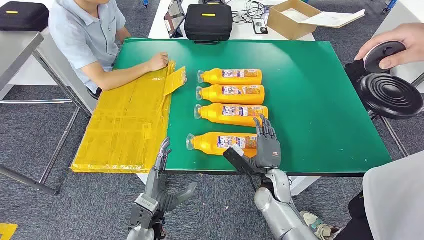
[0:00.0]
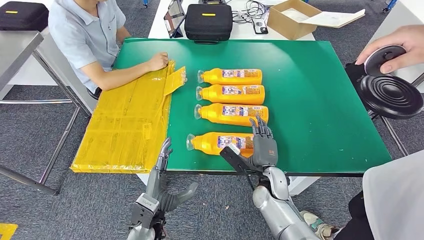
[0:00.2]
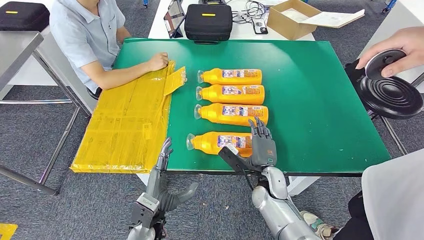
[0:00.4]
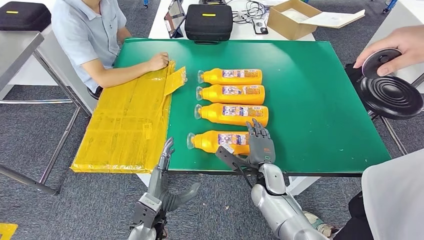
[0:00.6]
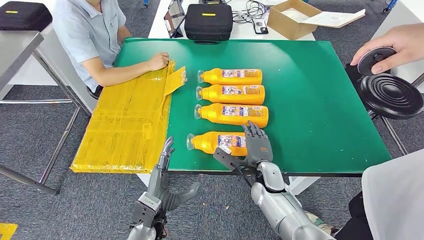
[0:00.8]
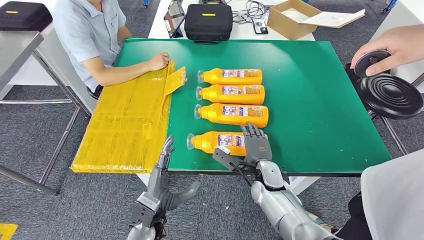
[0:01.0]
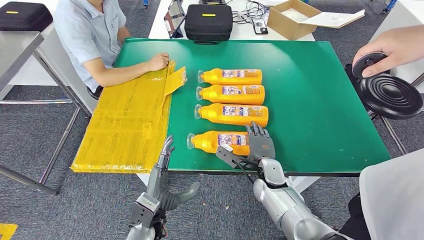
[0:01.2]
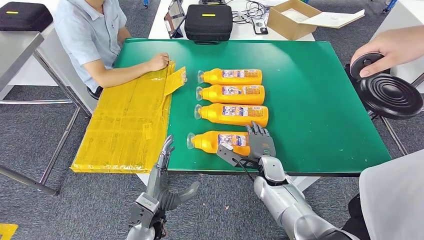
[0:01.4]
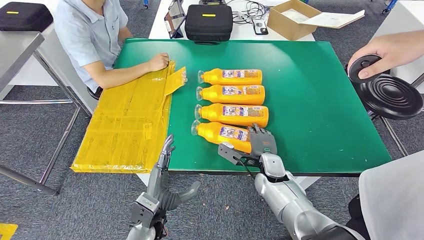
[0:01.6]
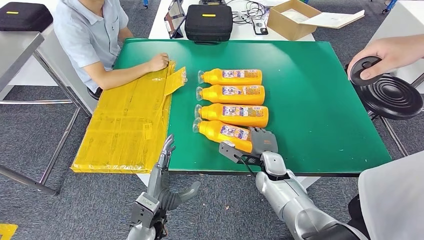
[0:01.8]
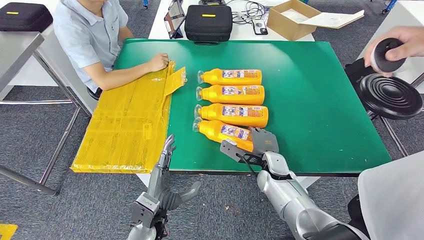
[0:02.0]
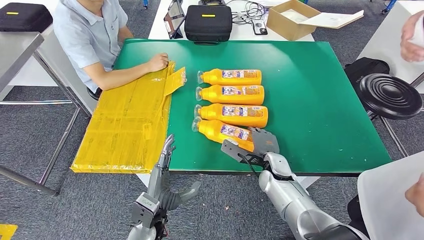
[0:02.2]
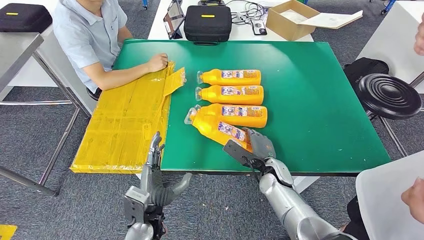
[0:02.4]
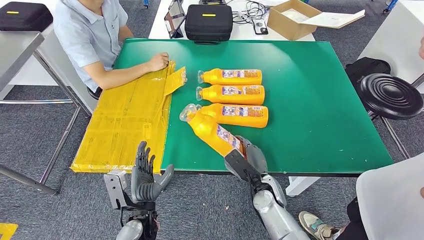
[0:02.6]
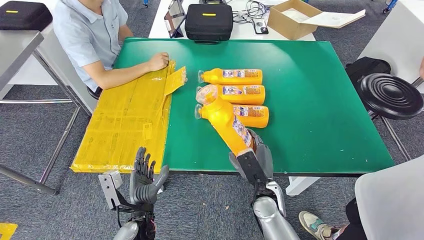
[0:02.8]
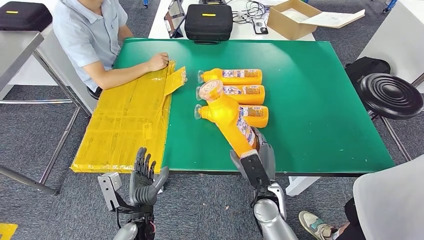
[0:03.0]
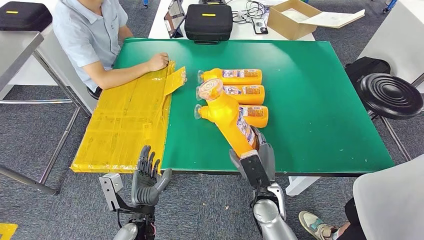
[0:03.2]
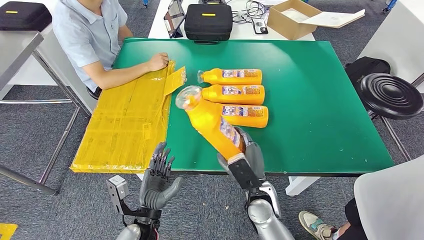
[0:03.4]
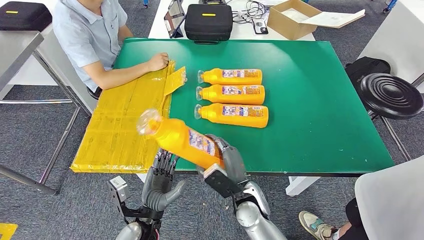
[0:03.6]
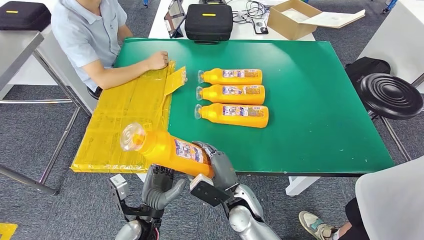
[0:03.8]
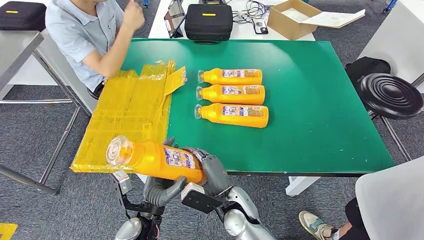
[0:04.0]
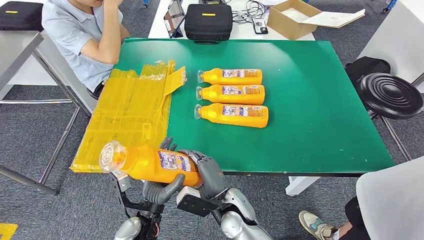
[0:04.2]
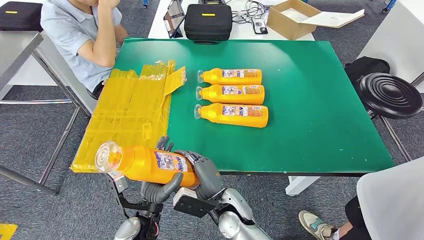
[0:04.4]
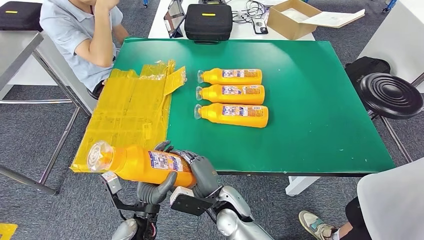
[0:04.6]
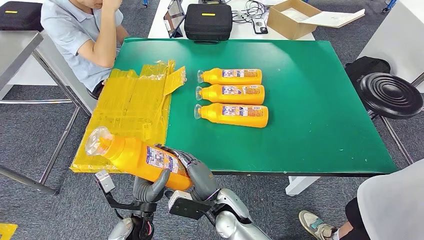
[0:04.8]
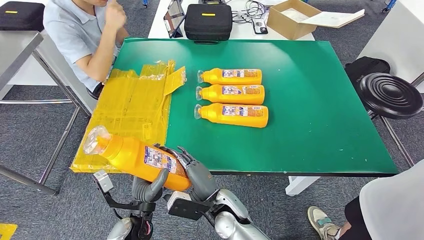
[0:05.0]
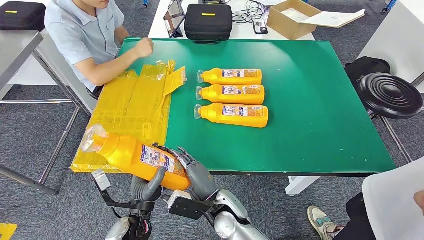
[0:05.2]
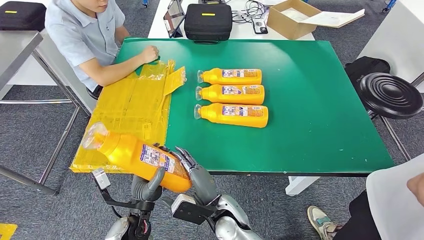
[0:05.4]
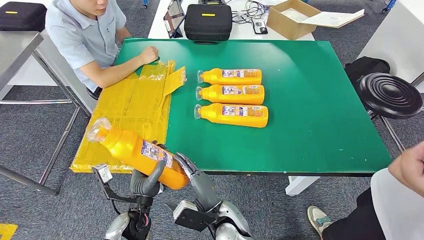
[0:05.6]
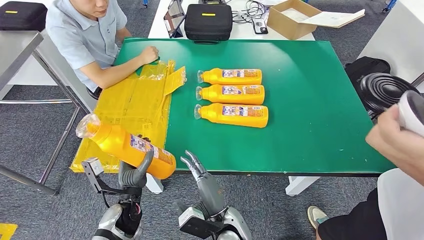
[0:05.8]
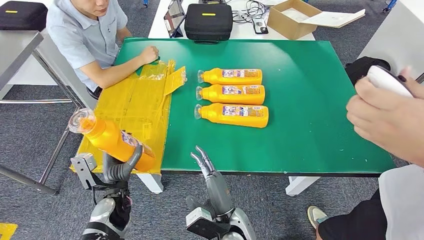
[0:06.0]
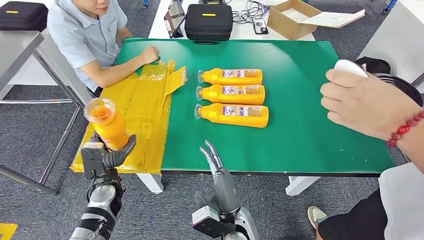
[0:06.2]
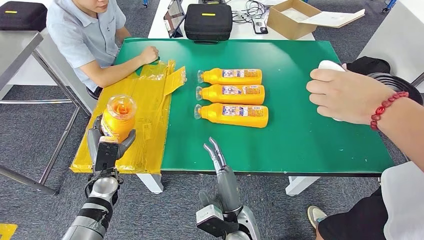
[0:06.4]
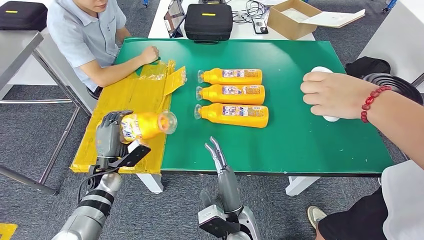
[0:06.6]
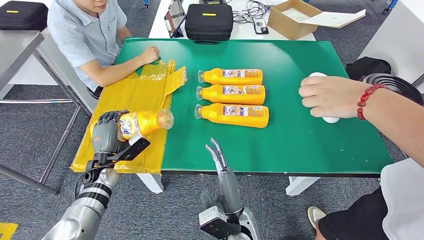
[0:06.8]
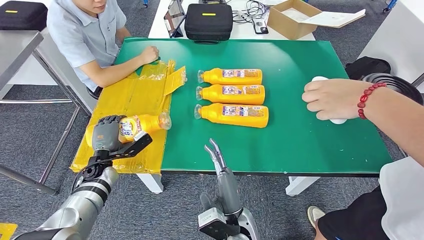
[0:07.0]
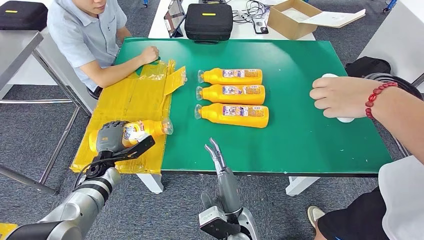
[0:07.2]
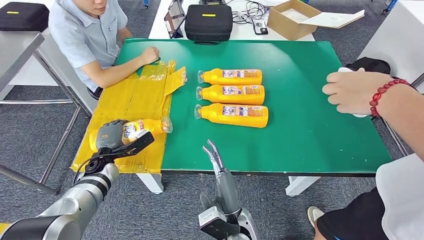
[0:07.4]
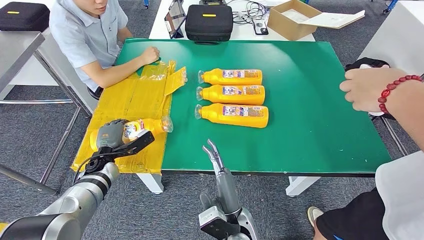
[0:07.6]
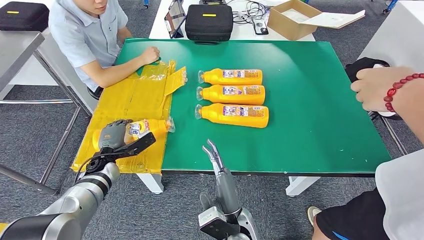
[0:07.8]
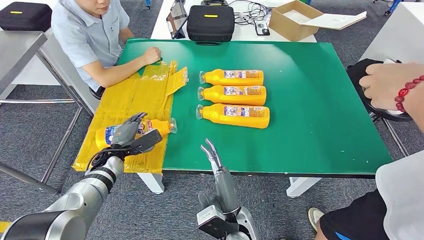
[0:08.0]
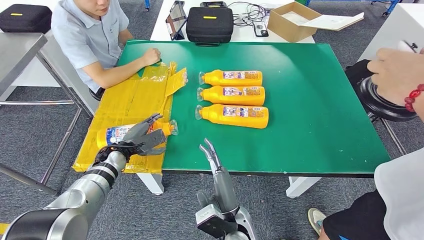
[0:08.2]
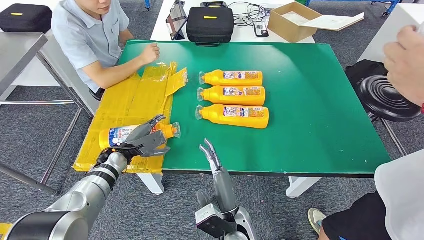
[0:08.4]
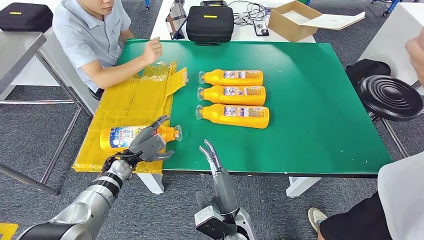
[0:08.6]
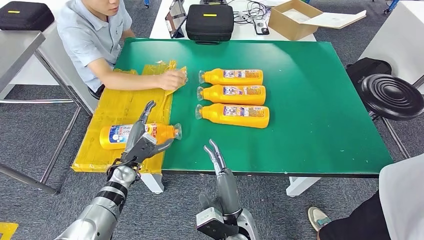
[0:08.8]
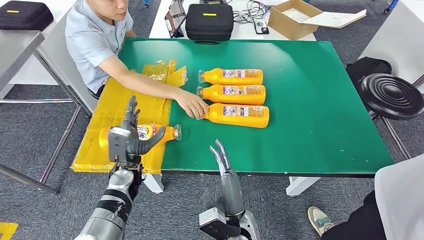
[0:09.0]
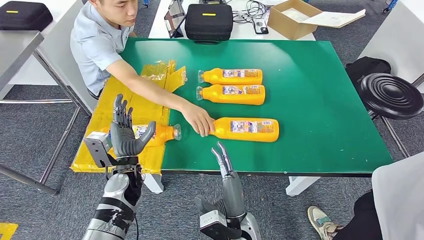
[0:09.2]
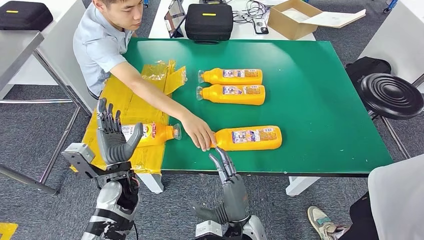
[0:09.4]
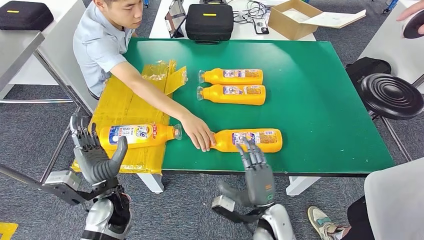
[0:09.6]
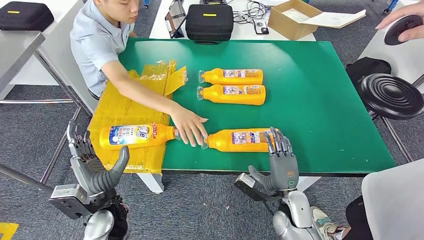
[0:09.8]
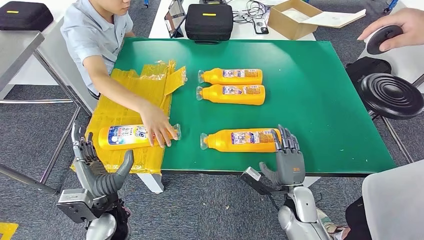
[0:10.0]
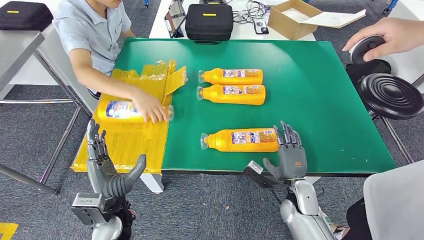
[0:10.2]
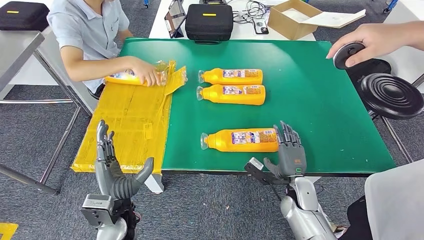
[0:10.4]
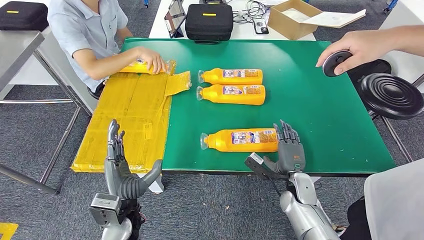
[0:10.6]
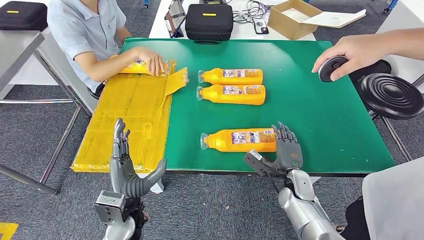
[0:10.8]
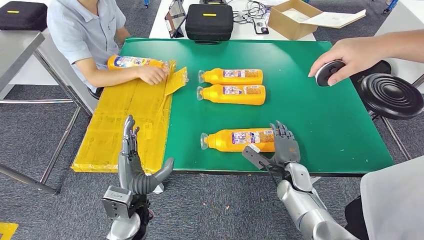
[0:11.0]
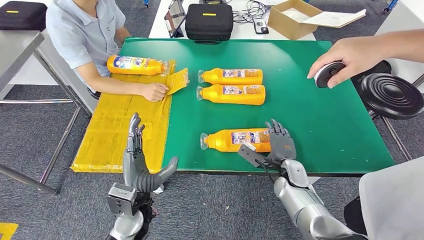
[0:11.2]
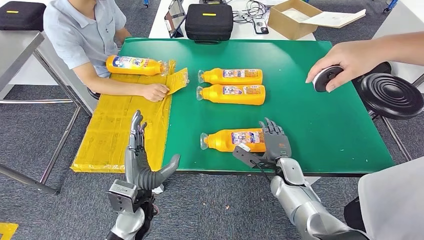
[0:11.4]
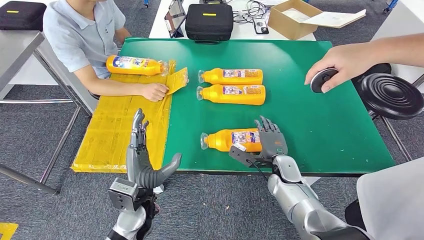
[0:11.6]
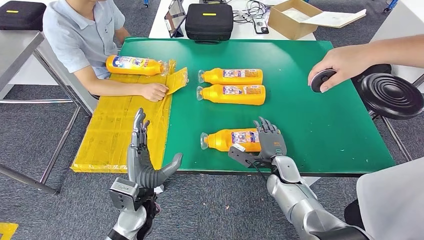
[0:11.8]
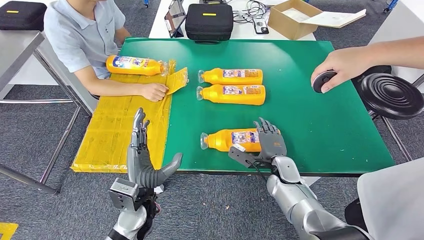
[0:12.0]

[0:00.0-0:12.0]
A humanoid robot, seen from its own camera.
Step, 0:00.0 to 0:03.4: Take the fast-moving consumer goods bottle from the table.
Step, 0:04.2 to 0:08.8: Flip the fast-moving consumer goods bottle to the front side.
0:01.6 to 0:03.0: The right hand shifts roughly 10 cm backward.
0:03.0 to 0:04.4: The right hand moves to the left, about 10 cm.
0:10.4 to 0:12.0: The right hand shifts roughly 5 cm forward; the left hand changes place by about 5 cm.

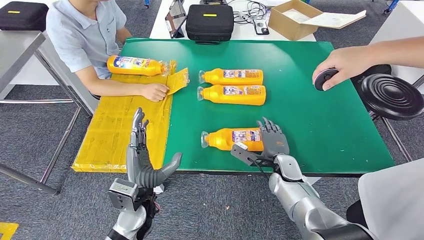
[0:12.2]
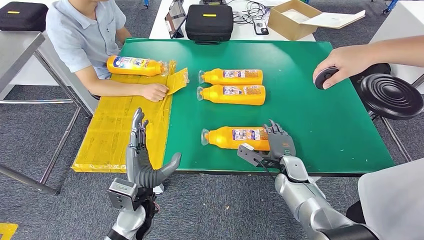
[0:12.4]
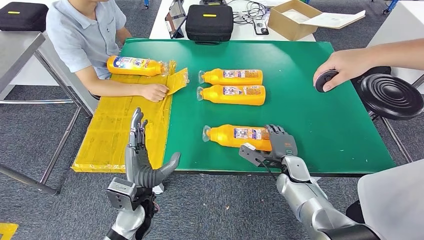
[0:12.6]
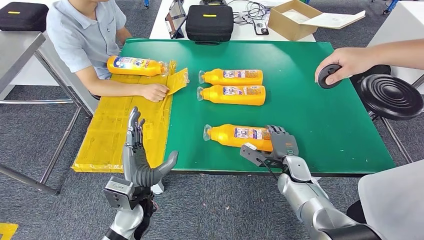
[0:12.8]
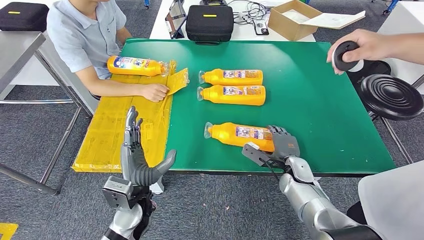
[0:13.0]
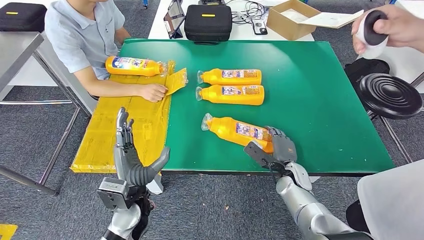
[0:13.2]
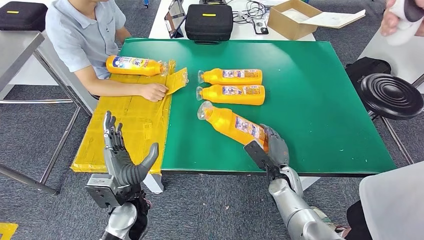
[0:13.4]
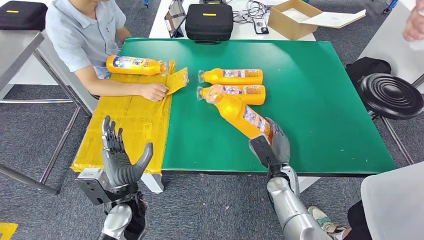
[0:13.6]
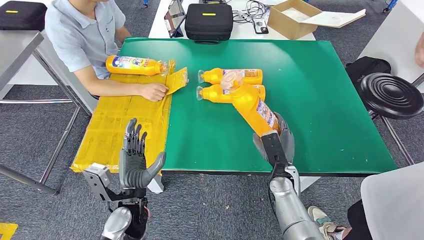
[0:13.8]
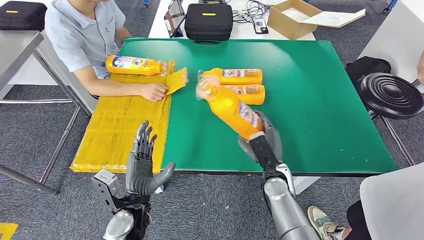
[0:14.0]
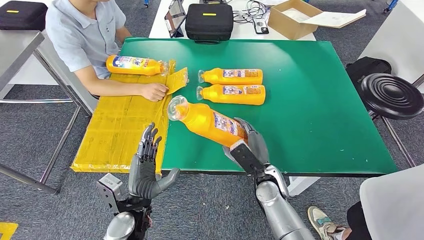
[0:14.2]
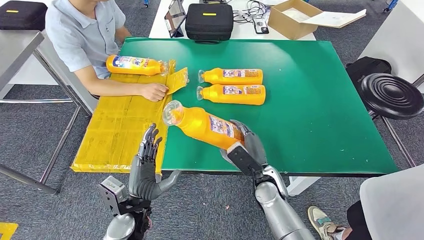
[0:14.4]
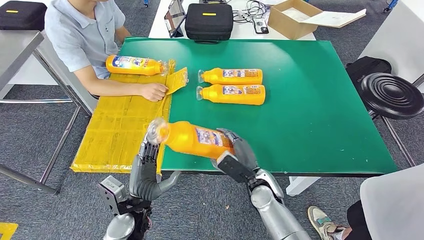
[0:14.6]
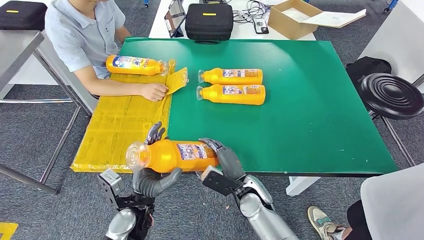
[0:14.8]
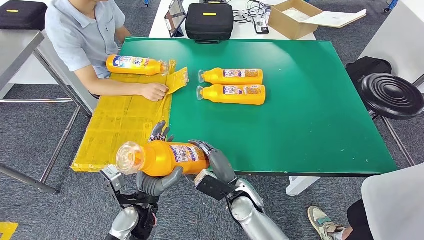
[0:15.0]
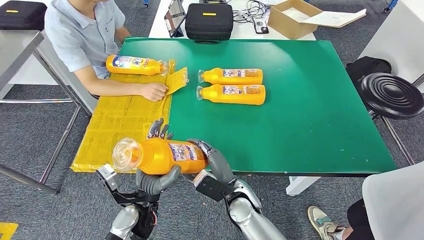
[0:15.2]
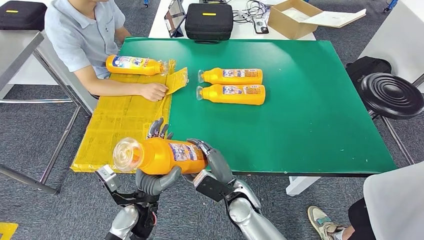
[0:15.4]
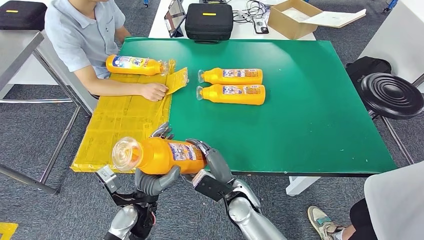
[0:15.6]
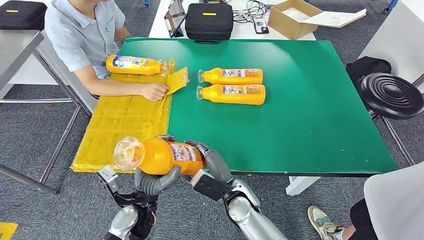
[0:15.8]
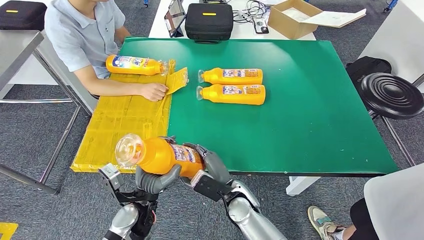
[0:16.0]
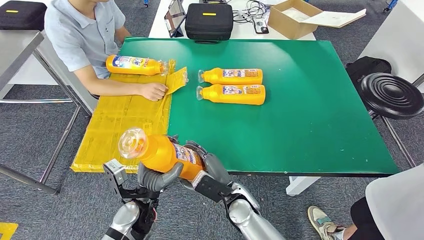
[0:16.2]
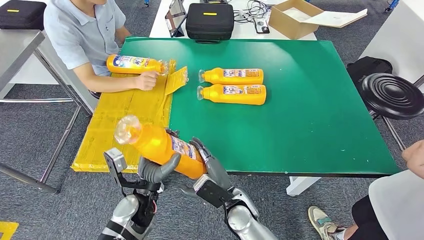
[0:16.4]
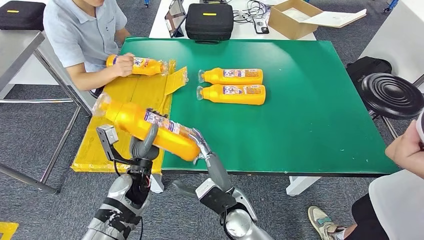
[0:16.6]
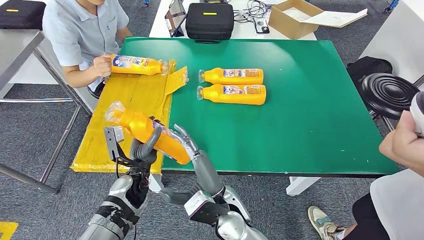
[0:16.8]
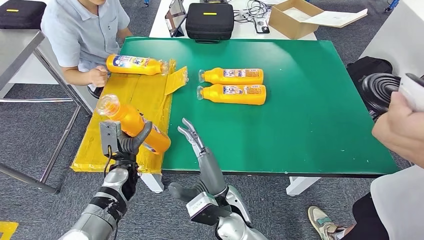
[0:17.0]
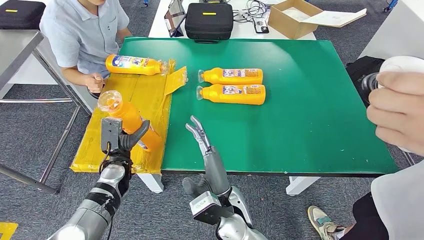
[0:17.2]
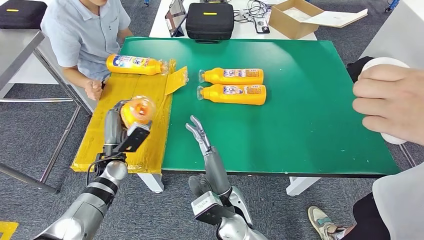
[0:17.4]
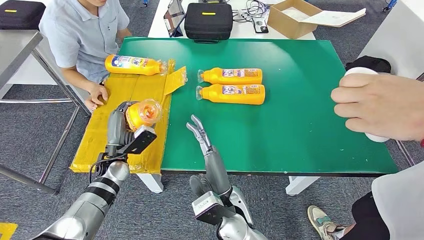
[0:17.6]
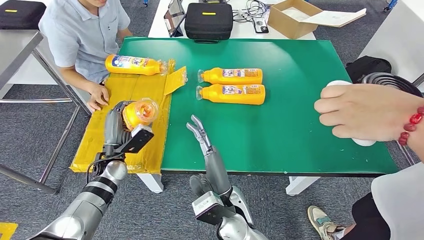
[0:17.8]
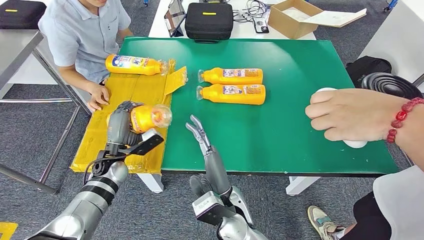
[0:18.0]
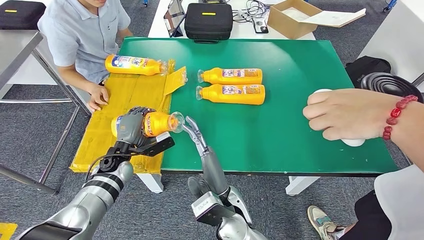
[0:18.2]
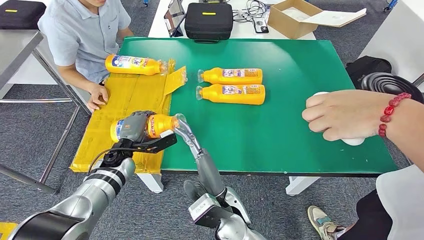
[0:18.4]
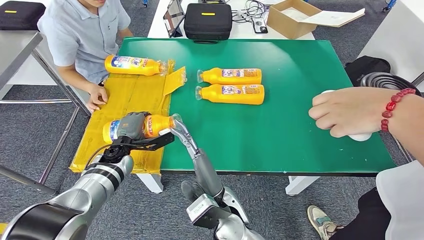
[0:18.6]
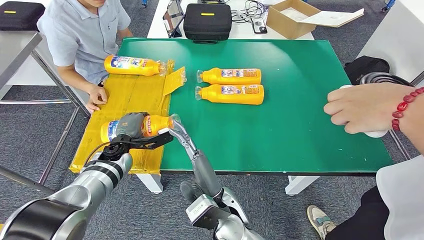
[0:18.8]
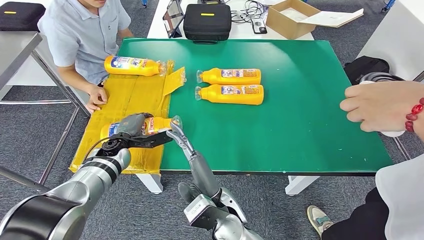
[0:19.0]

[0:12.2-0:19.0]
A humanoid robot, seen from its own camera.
Step, 0:12.8 to 0:14.8: Pick up the fast-moving consumer goods bottle from the table.
0:13.6 to 0:15.0: The right hand moves to the left and backward, approximately 15 cm.
0:15.0 to 0:16.2: The hands stay close to where they were, moving slightly.
